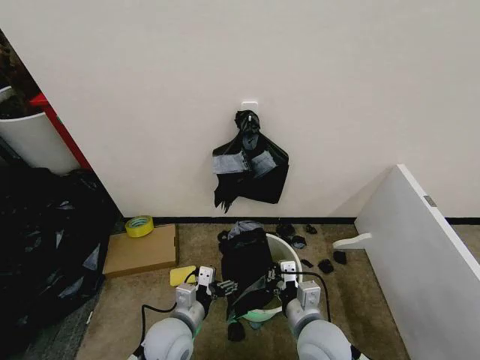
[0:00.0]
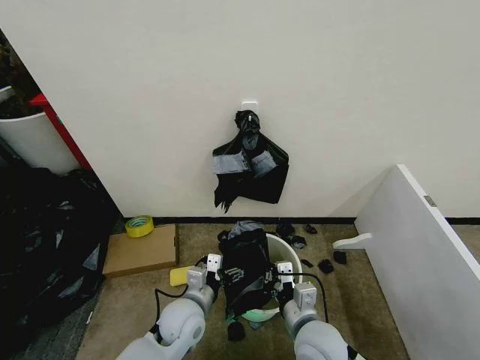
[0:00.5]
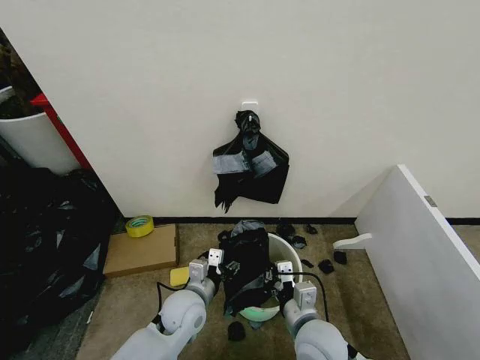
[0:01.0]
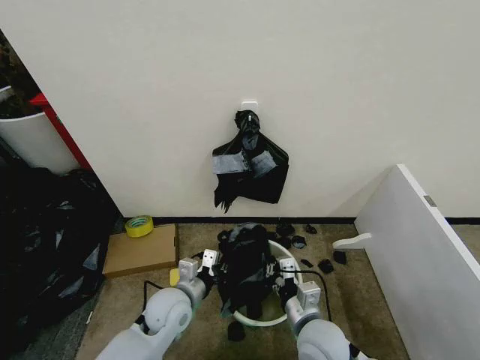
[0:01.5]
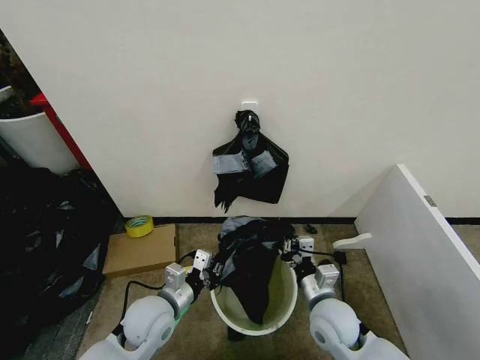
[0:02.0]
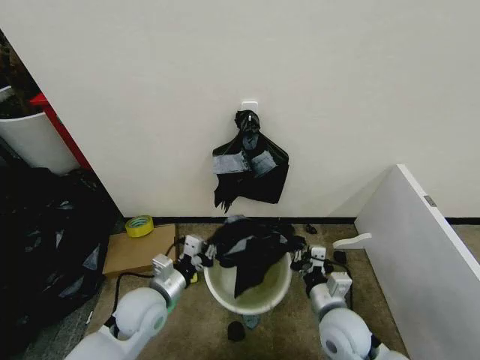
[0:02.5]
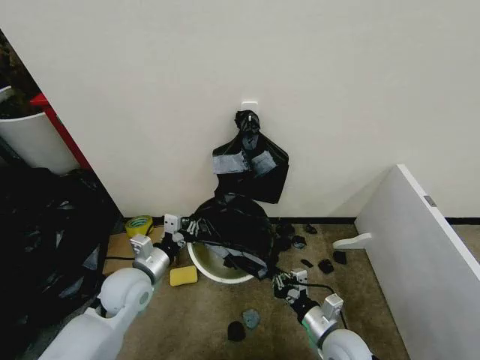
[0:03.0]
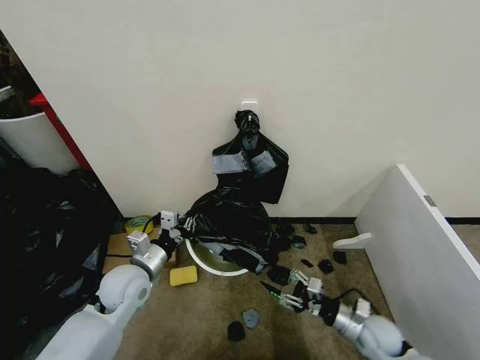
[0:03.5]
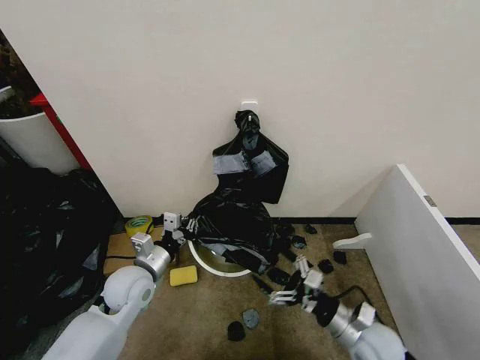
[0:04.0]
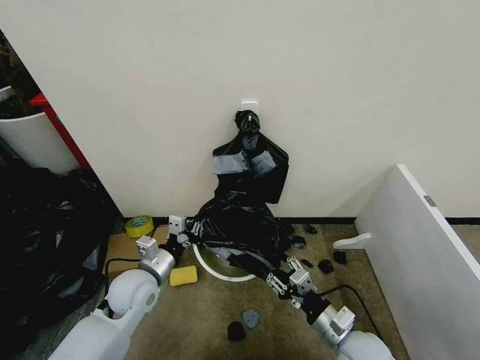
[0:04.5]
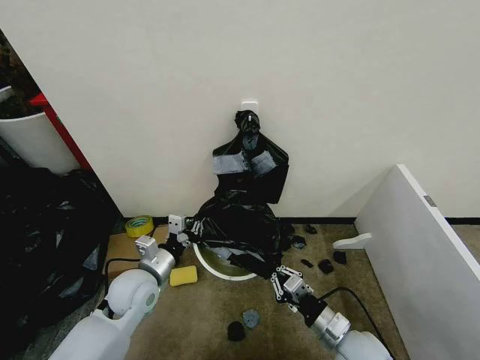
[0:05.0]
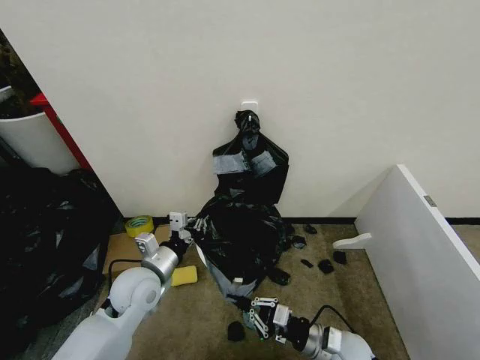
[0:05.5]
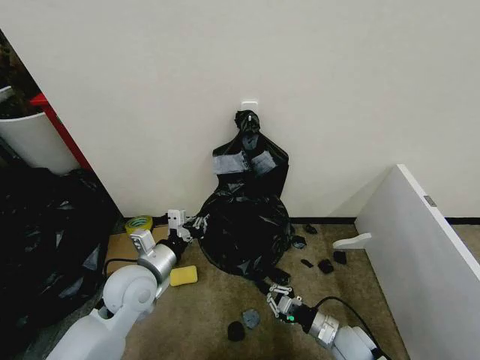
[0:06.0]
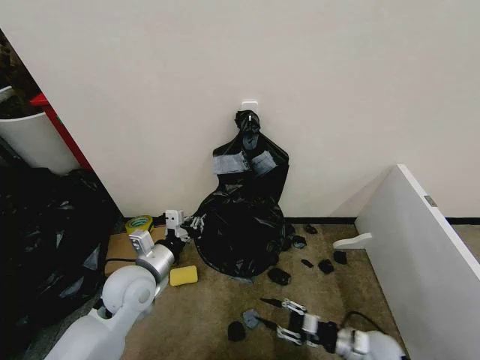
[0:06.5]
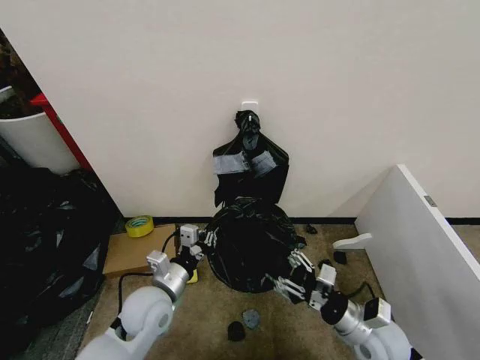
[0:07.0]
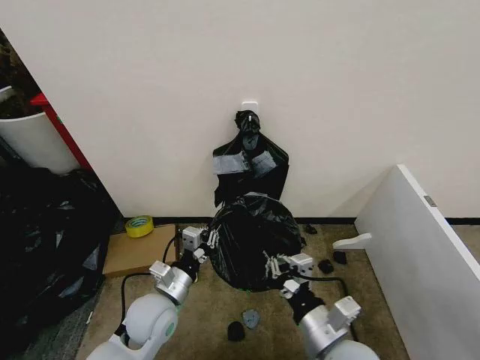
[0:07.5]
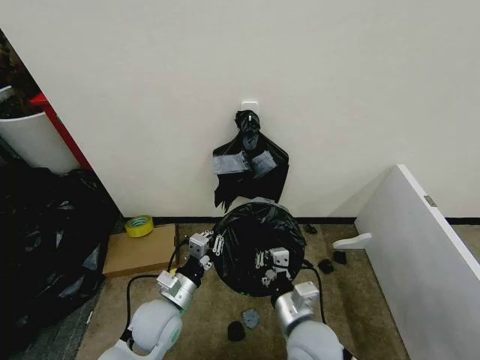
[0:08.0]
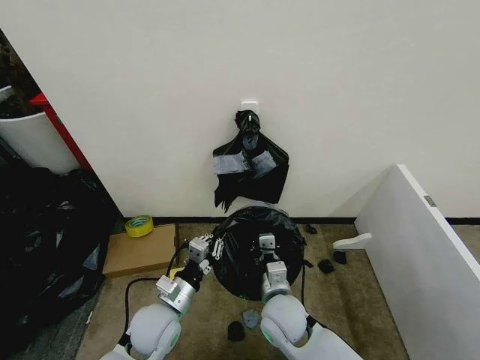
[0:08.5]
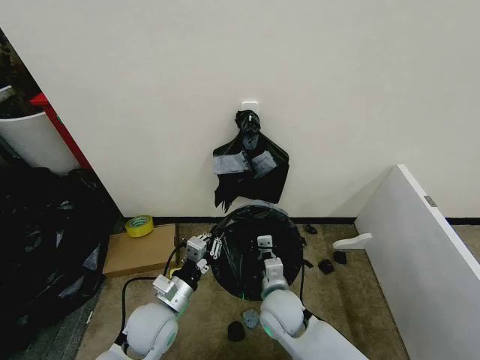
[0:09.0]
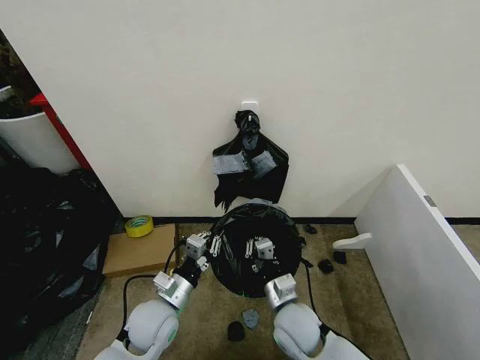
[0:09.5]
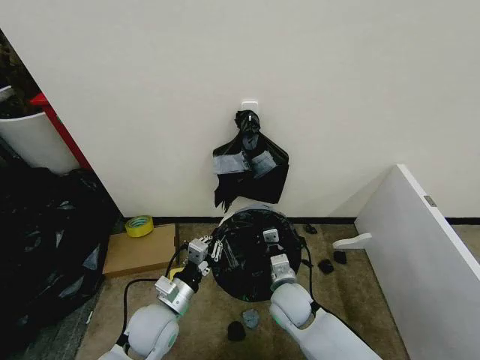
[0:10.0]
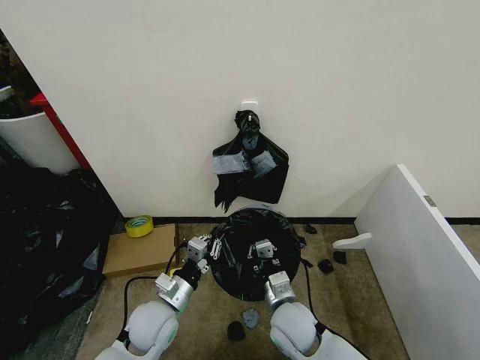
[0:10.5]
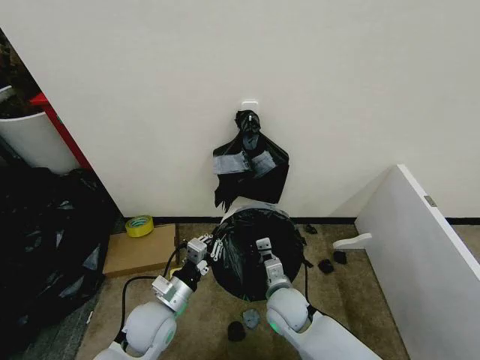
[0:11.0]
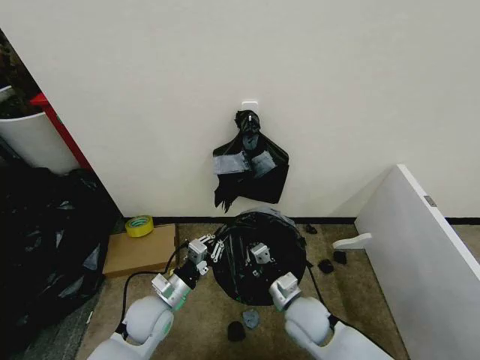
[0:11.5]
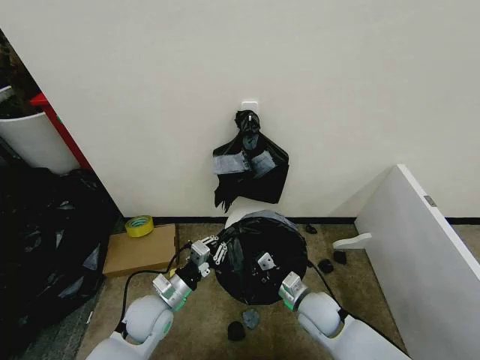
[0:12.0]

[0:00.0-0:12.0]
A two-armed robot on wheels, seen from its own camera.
Task of the whole recording: Place the garbage bag over the trash bin.
0:00.0 to 0:02.0: The right gripper changes place by about 5 cm. The left gripper moves some 5 cm, and closes its fingers.
0:02.0 to 0:04.0: The left gripper moves to the left and forward, approximately 10 cm. The right gripper goes approximately 10 cm to the right, and opens up.
0:04.0 to 0:06.0: The right gripper moves downward, some 10 cm, and closes its fingers.
0:06.0 to 0:08.0: The left gripper moves downward, approximately 10 cm; the right gripper moves upward and to the left, approximately 20 cm, and opens, then closes again.
0:08.0 to 0:10.0: The right gripper travels forward and downward by roughly 15 cm.
0:10.0 to 0:12.0: The right gripper heads to the right, covering roughly 5 cm.

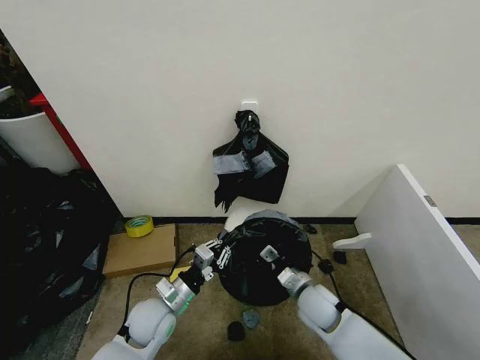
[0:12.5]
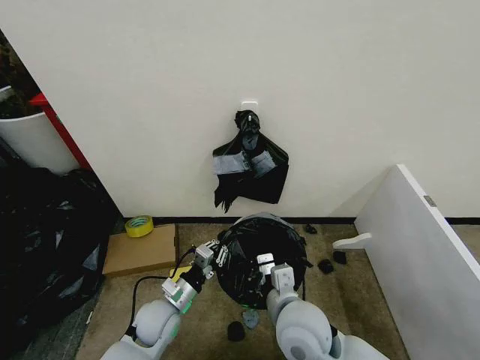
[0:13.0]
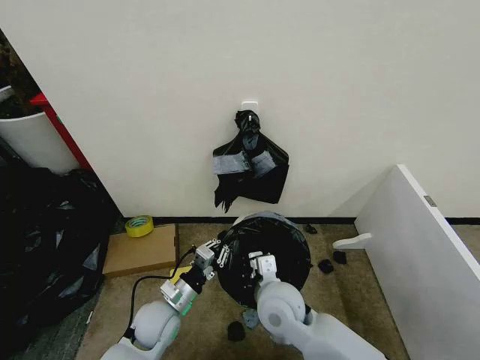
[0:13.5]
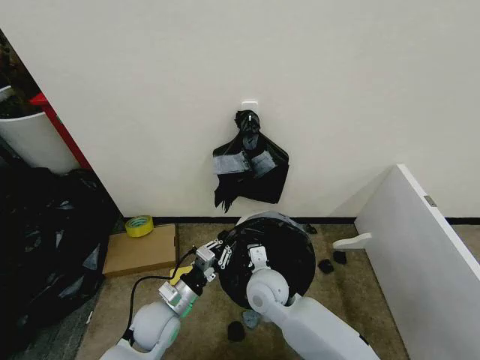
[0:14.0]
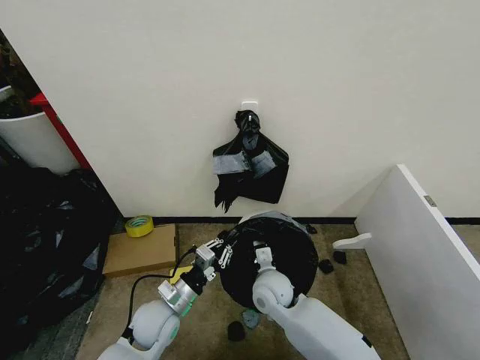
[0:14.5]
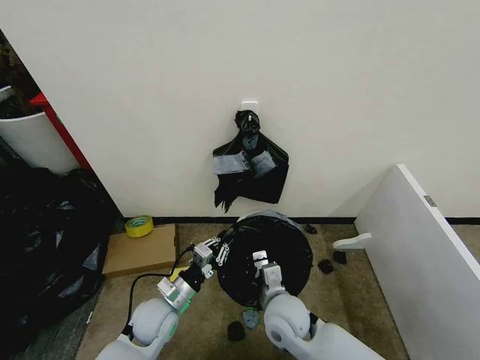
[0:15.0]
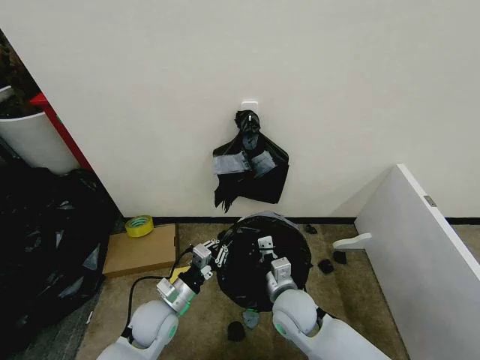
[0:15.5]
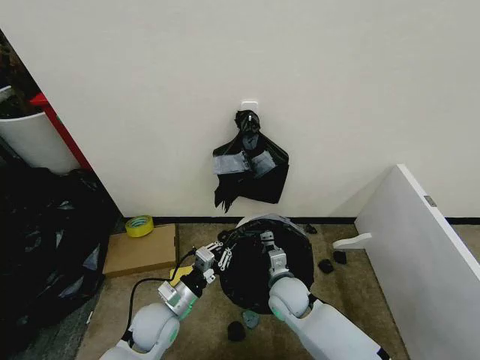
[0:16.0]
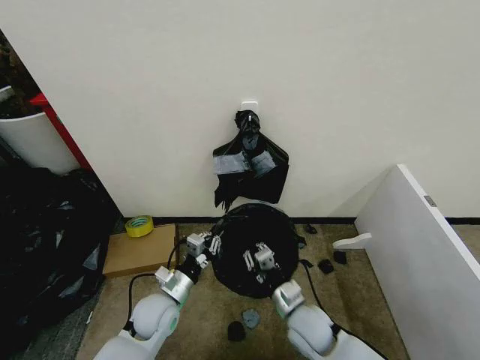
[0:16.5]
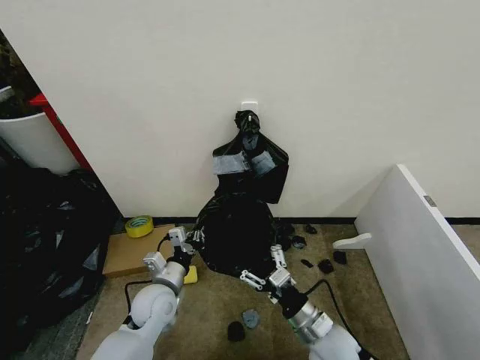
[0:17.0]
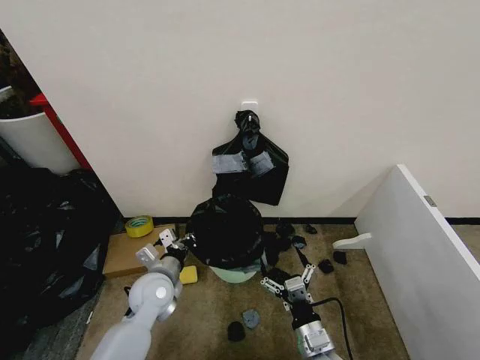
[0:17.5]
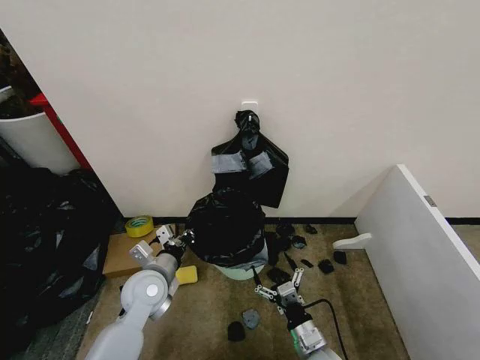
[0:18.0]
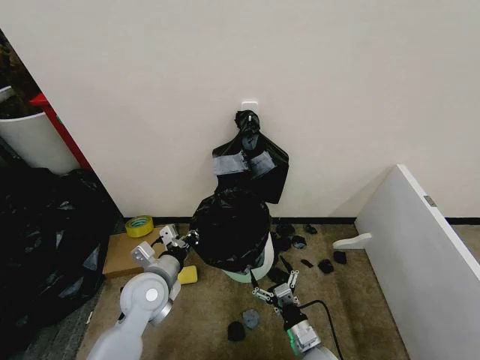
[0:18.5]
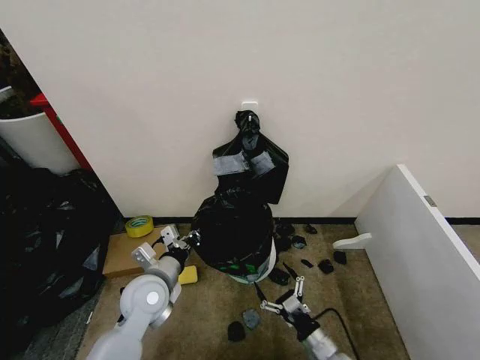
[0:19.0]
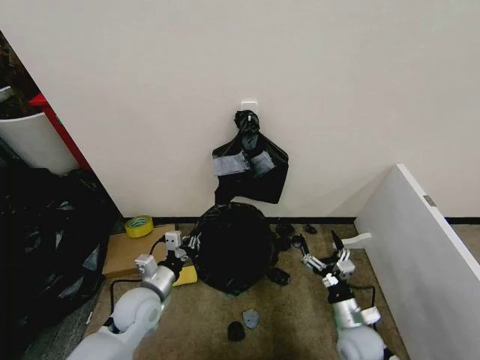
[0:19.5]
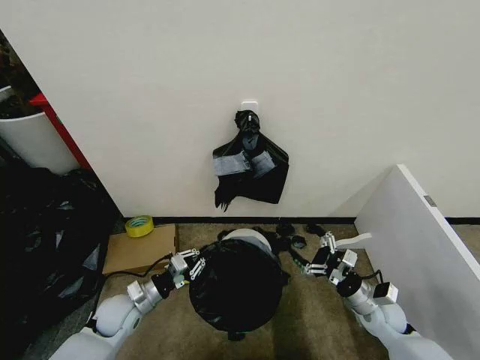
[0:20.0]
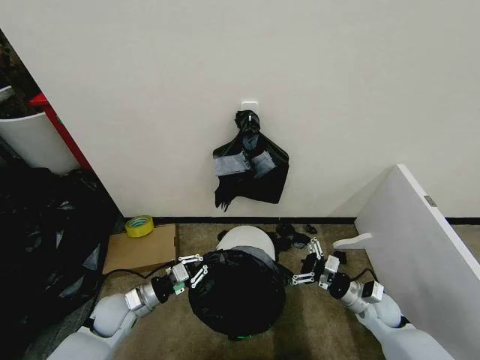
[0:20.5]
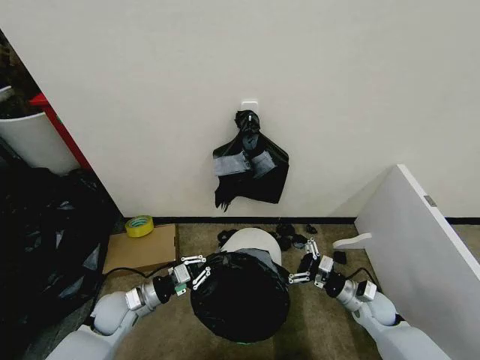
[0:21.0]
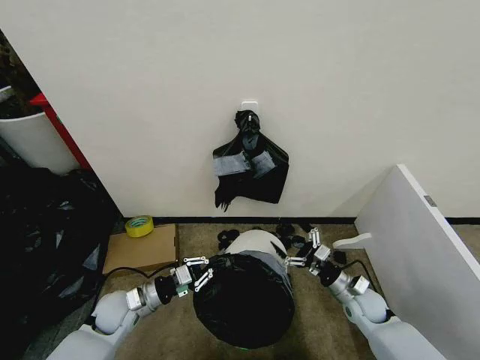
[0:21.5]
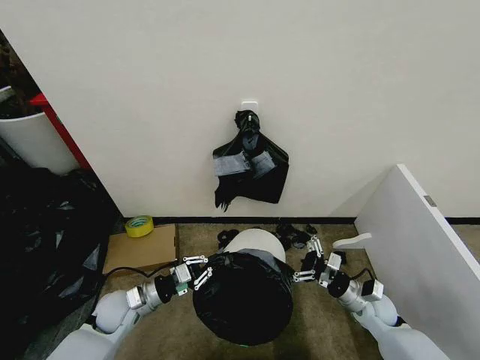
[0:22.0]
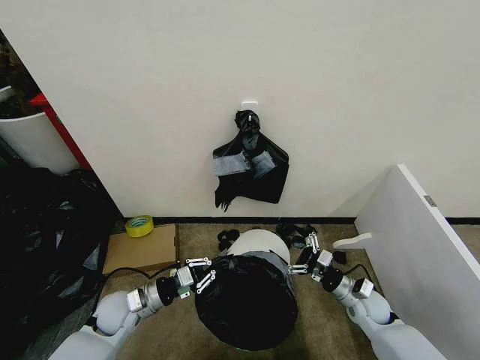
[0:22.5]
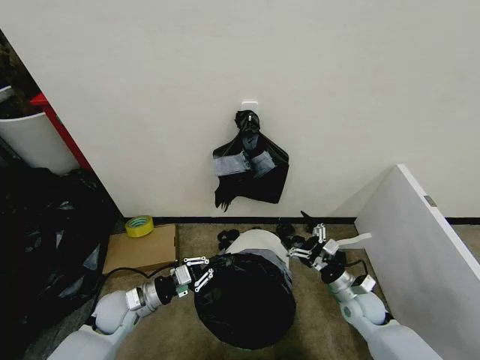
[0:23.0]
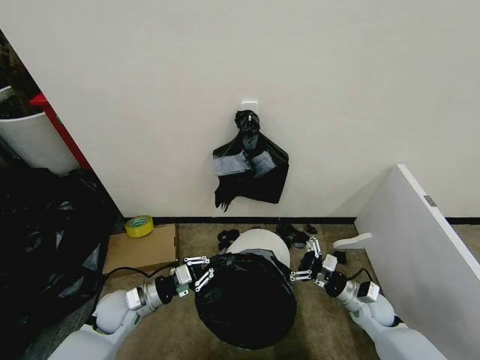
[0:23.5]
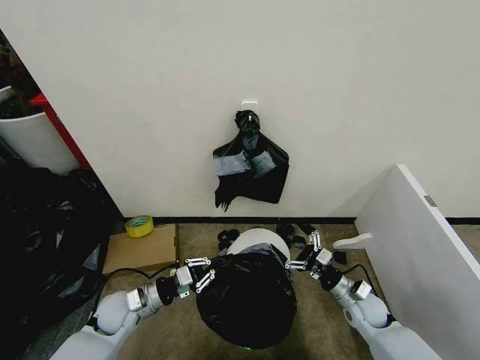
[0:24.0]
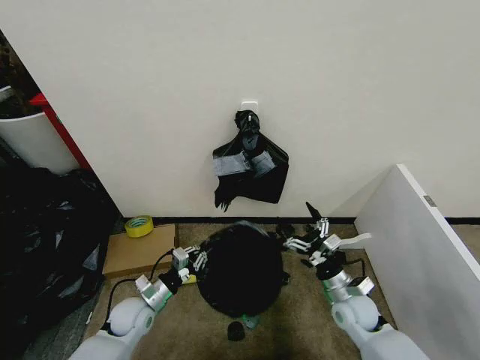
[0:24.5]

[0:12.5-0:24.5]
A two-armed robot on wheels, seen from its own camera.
Task of the whole recording: Place the garbage bag over the trash bin.
0:12.5 to 0:14.5: The right gripper travels to the left by about 10 cm, and moves roughly 15 cm upward and comes back.
0:14.5 to 0:16.5: The right gripper is displaced to the right and backward by some 10 cm.
0:16.5 to 0:18.5: The right gripper is displaced downward and backward by approximately 10 cm, and opens its fingers; the left gripper travels upward by some 10 cm.
0:18.5 to 0:20.5: The right gripper heads to the right and forward, covering approximately 20 cm; the left gripper is displaced downward and to the left by approximately 15 cm.
0:20.5 to 0:22.5: The grippers stay close to where they were, moving slightly.
0:22.5 to 0:24.5: The right gripper moves to the left, approximately 5 cm; the left gripper changes place by some 5 cm.

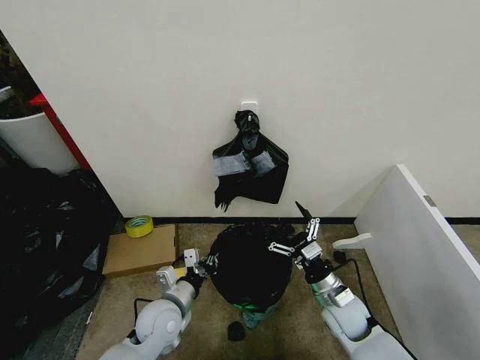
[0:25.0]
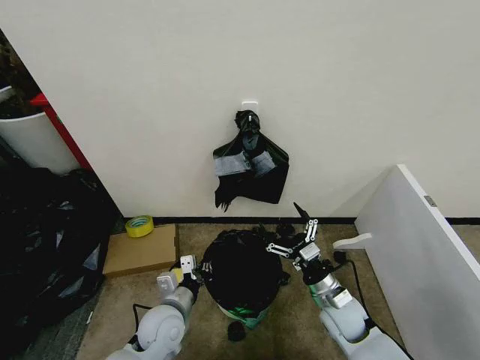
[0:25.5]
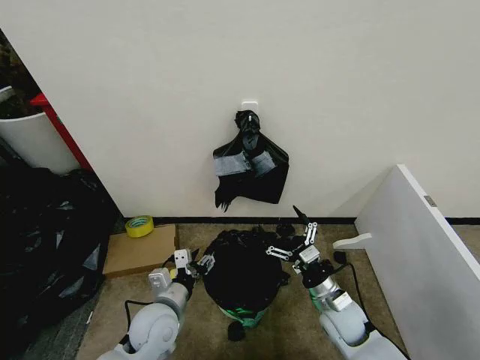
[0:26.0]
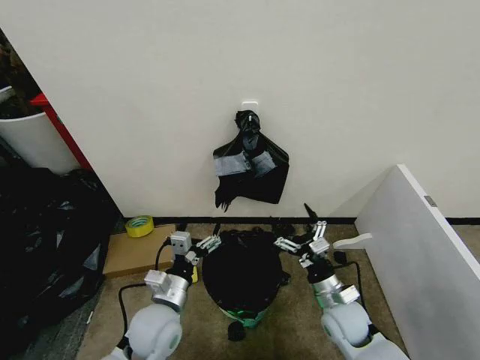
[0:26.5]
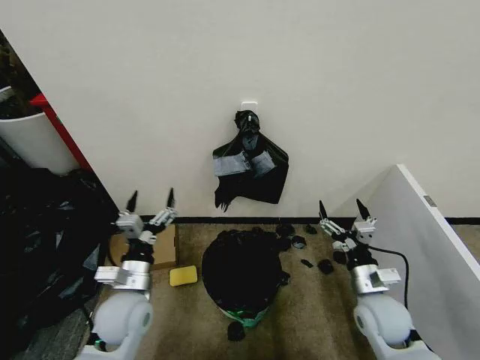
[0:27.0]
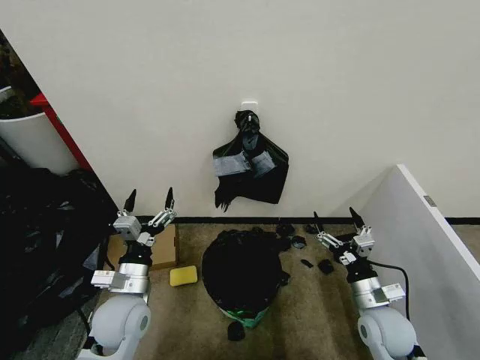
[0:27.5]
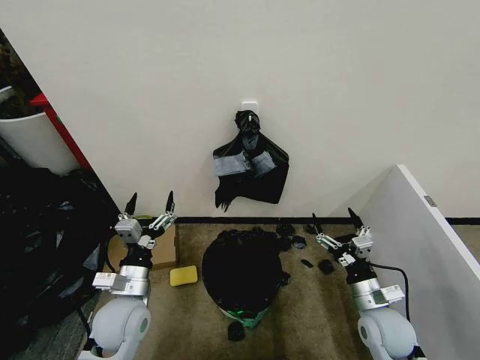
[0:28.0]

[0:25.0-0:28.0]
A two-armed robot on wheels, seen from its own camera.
Task of the whole recording: Place the garbage bag over the trash bin.
0:25.0 to 0:26.5: The left gripper changes place by approximately 5 cm, and opens.
0:26.5 to 0:28.0: The right gripper shifts approximately 5 cm to the right; the left gripper goes about 5 cm to the left.
